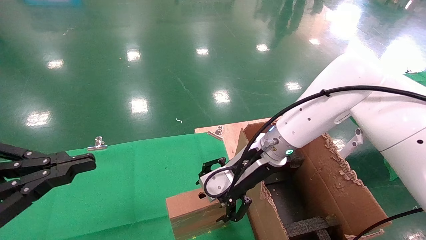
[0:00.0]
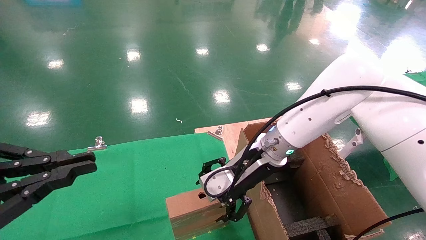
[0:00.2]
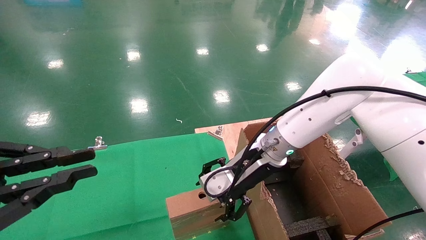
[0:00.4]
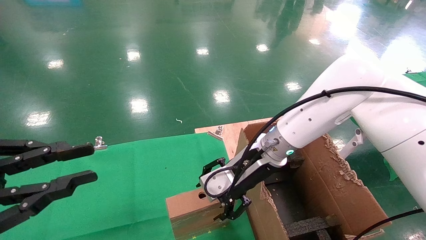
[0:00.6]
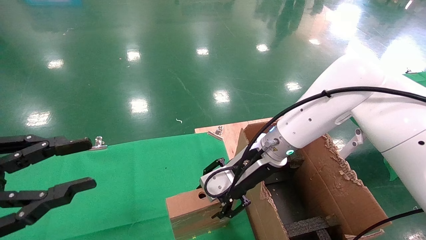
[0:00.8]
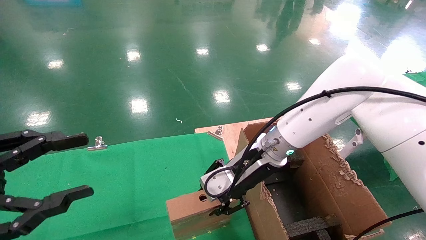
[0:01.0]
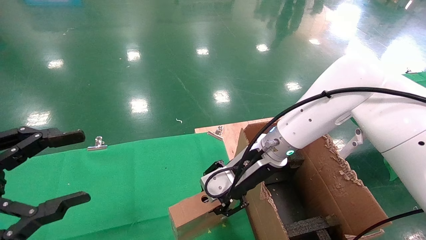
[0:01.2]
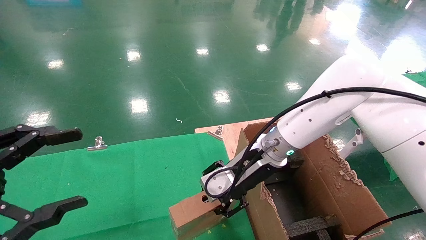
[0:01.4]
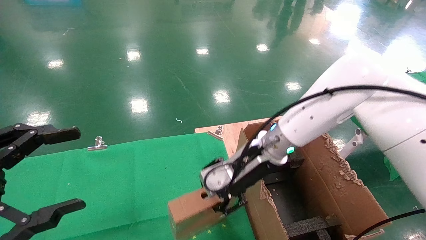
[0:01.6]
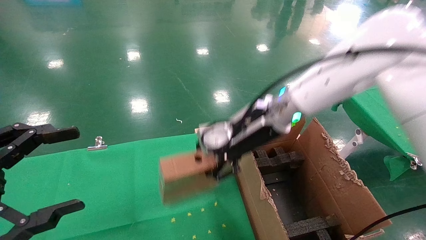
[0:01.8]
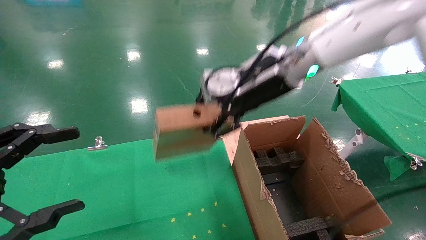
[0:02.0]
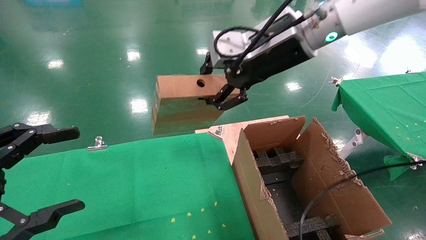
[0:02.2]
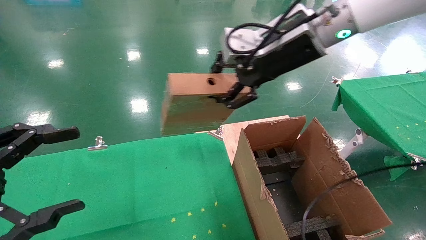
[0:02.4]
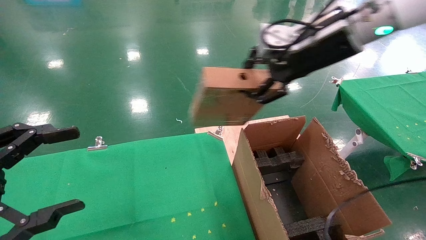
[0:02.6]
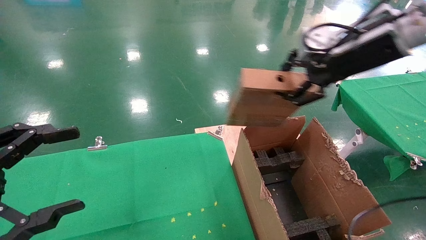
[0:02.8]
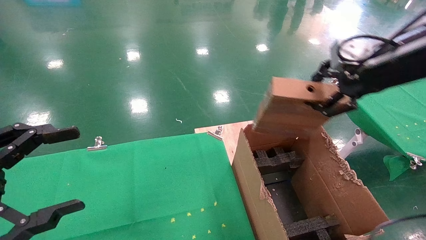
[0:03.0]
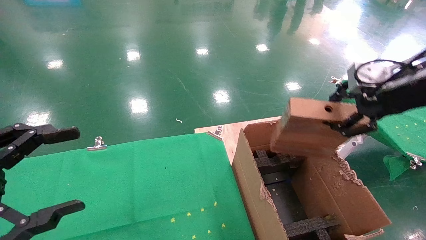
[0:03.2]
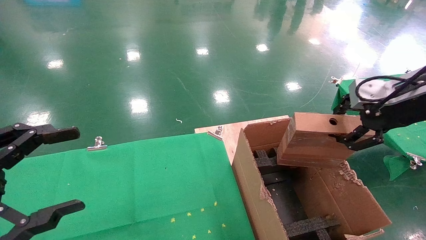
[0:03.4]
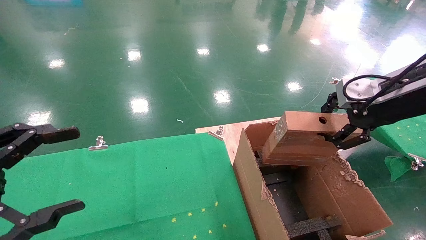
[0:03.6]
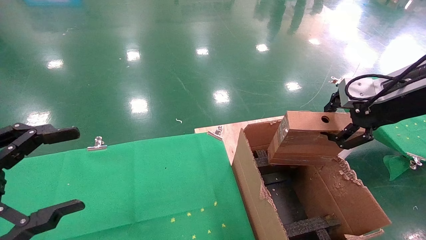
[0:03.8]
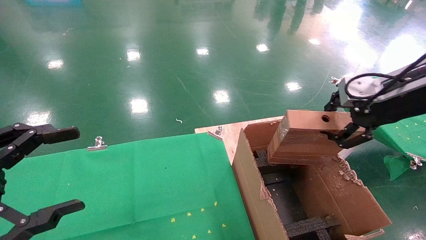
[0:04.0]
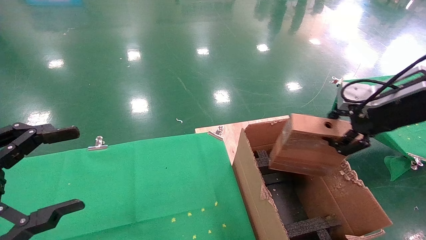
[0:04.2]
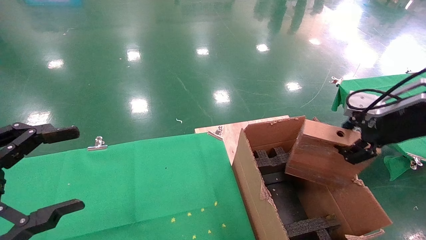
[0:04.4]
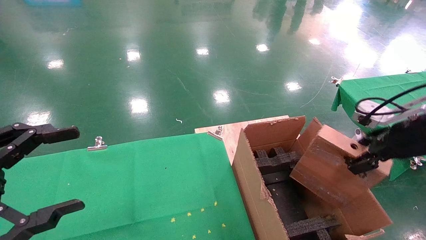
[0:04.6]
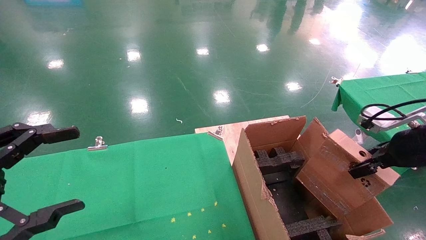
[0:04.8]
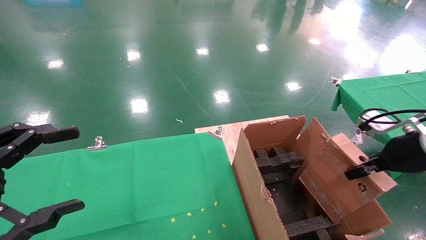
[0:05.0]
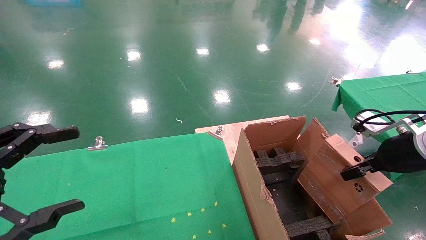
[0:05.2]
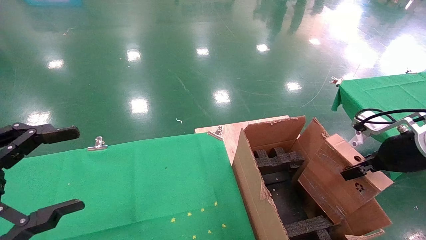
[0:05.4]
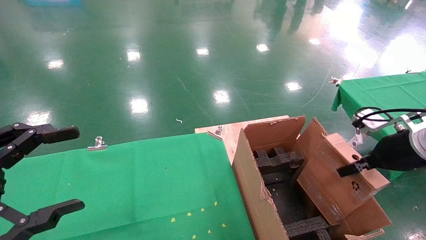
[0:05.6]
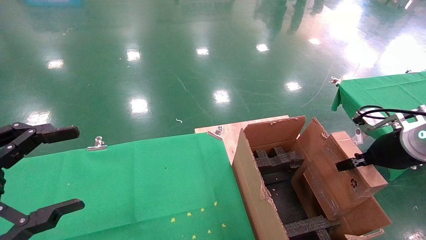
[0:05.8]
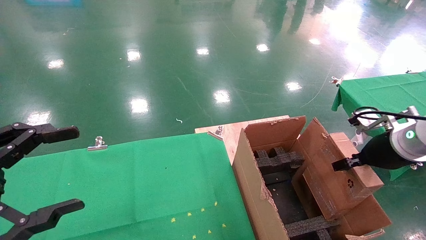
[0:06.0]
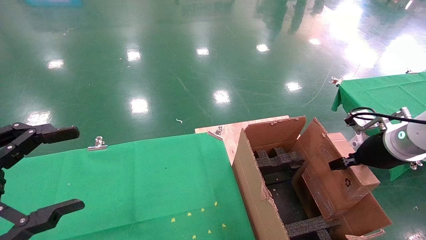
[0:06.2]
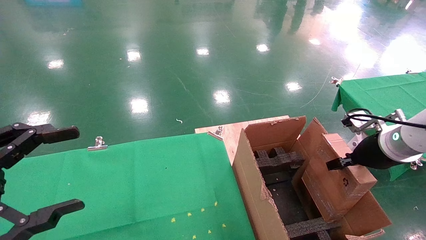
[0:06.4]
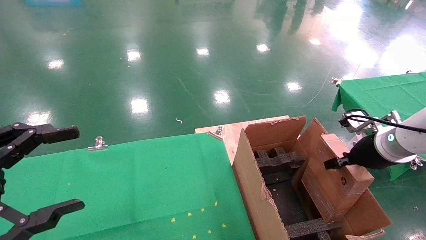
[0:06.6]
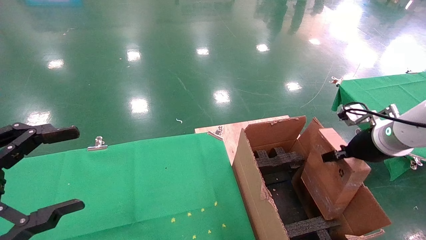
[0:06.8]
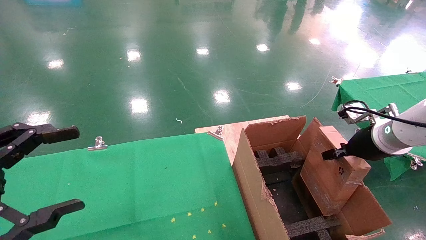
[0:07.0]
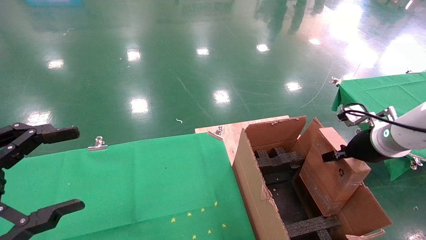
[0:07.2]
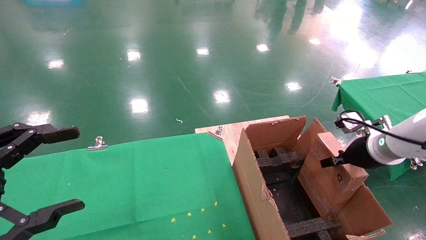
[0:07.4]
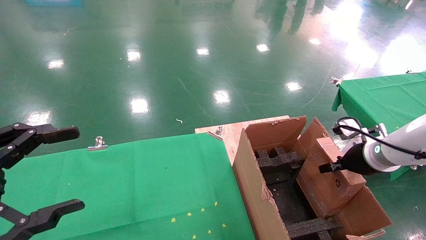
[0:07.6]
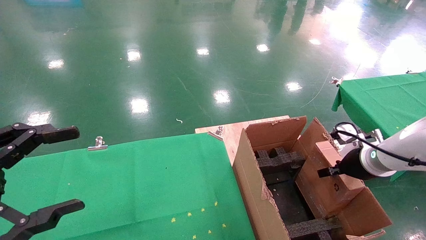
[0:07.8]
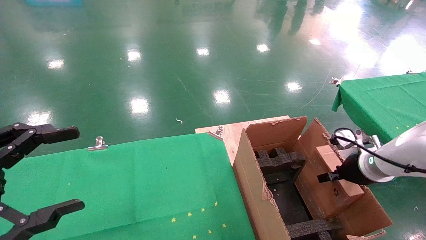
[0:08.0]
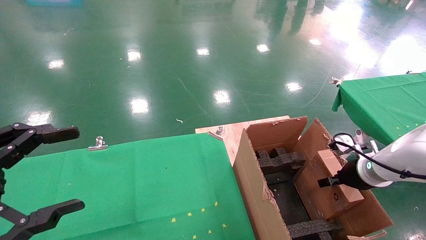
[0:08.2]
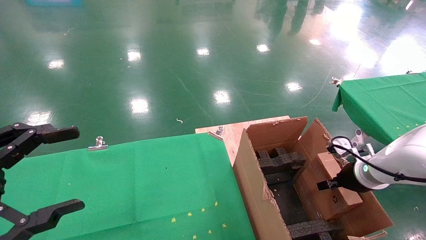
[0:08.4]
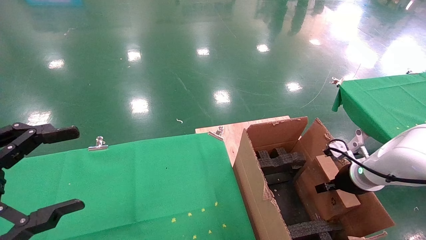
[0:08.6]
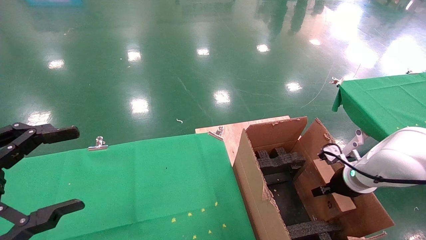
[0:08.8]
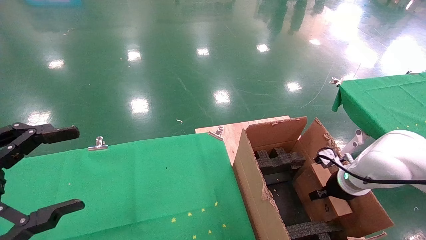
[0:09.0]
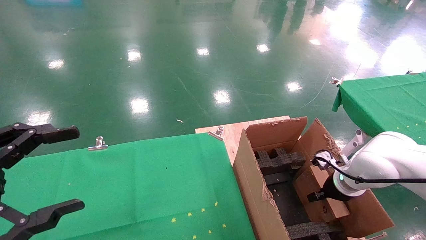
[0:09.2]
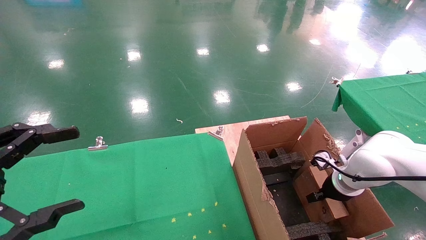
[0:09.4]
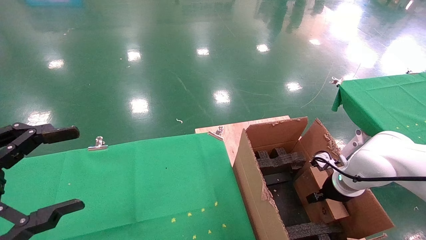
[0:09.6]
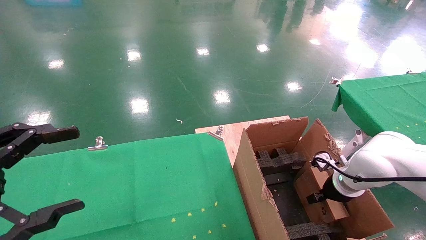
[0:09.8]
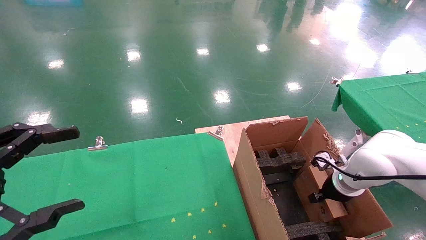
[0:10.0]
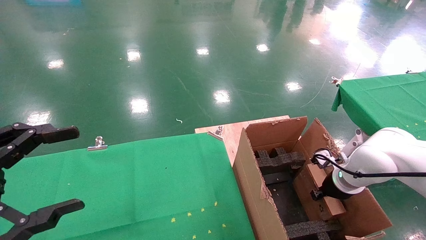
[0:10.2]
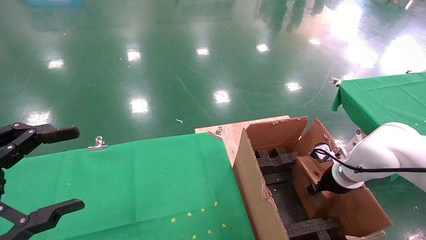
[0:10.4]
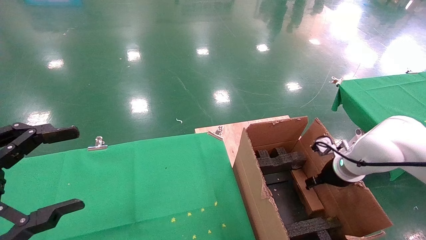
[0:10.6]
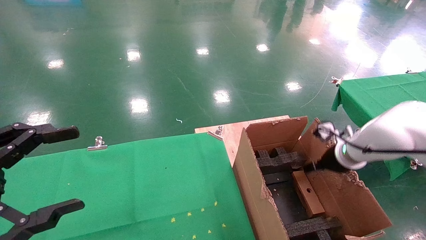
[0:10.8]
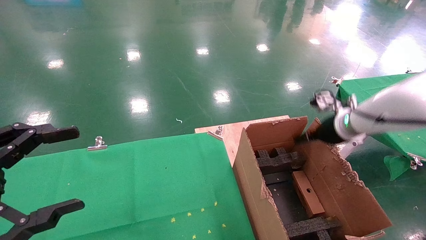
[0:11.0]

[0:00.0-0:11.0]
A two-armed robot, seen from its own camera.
Task of the whole recording: using a robotic arm to pick up a cardboard box and palace it the carton.
Step, 0:01.4 to 0:10.4: Place the mouse and the power cord paper box into the container.
0:00.0 to 0:01.6: The right gripper closes up. Meanwhile the left gripper opens up.
0:01.6 to 0:03.2: The right gripper goes about 25 cm to the right and upward.
0:03.2 to 0:04.8: The right gripper moves downward, approximately 10 cm.
0:04.8 to 0:06.2: The right gripper ends up roughly 5 cm from where it was.
0:06.2 to 0:07.8: The right gripper is displaced downward by approximately 5 cm.
0:07.8 to 0:09.4: The right gripper goes roughly 10 cm downward.
0:09.4 to 0:11.0: The right gripper moves upward, some 15 cm, and opens its fingers.

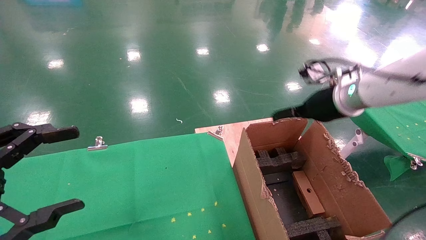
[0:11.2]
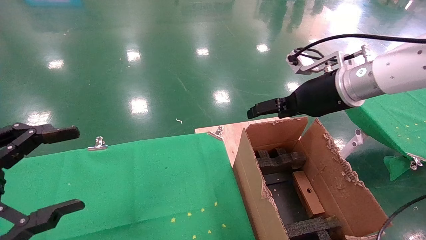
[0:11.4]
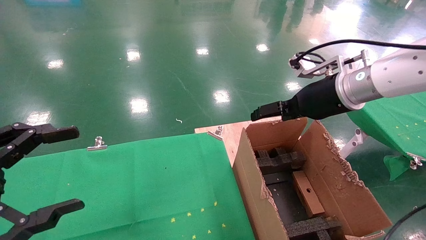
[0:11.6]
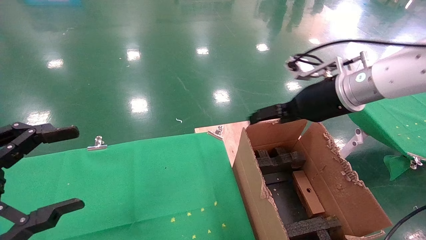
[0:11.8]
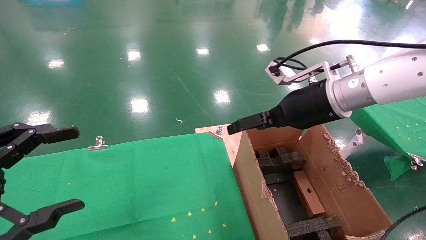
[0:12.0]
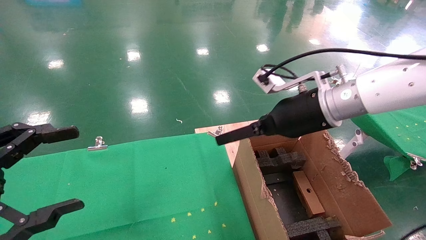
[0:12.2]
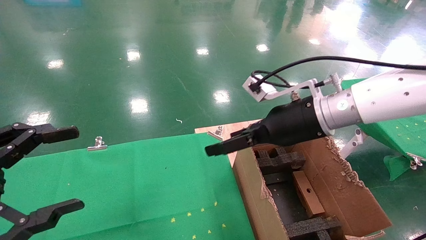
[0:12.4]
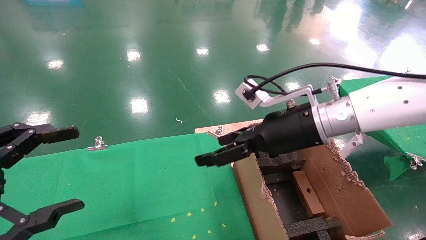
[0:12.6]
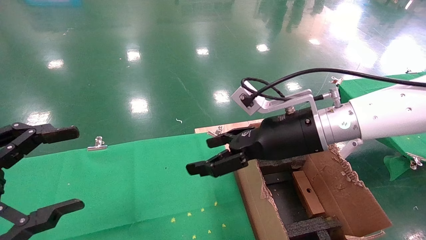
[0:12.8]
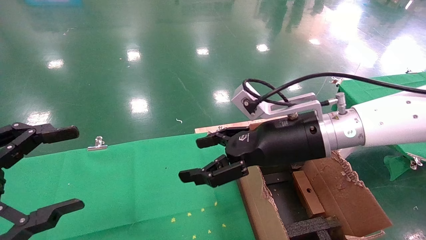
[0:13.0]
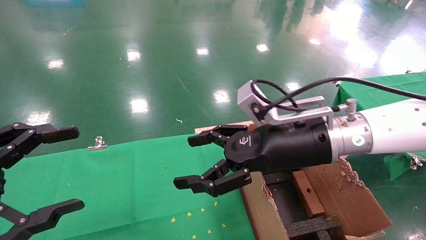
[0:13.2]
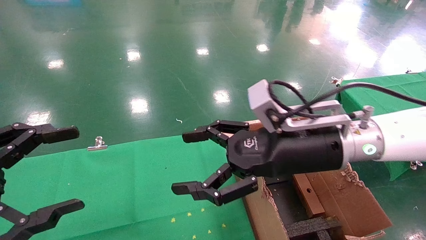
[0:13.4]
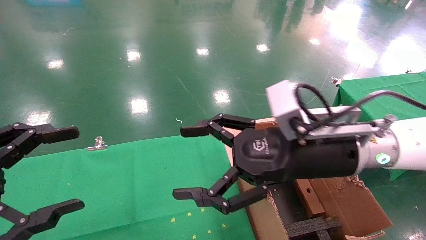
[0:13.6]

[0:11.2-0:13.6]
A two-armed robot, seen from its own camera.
Task of the whole recording: using a robotic arm to pick up a cardboard box and palace it the carton.
0:11.2 to 0:12.4: The right gripper heads to the left, covering about 10 cm.
0:12.4 to 0:13.6: The right gripper goes some 5 cm backward.
